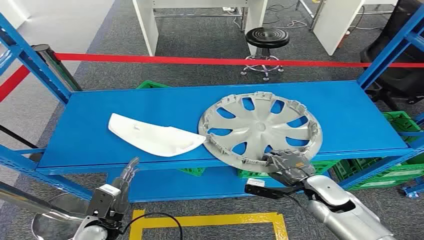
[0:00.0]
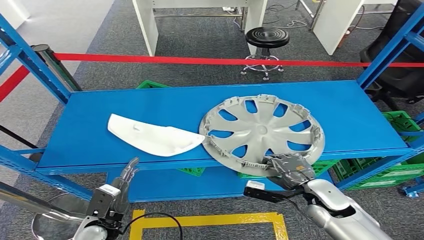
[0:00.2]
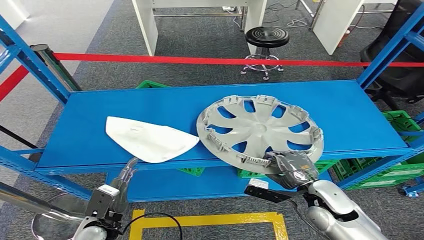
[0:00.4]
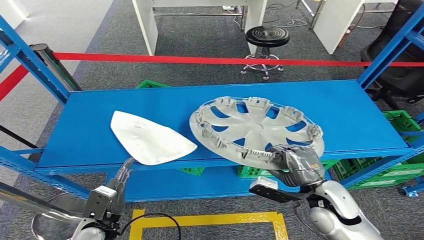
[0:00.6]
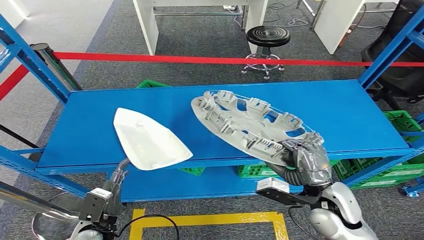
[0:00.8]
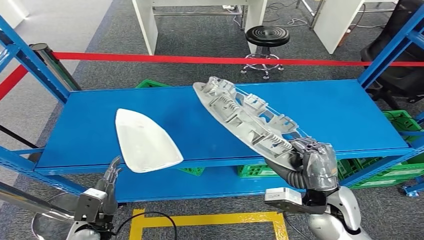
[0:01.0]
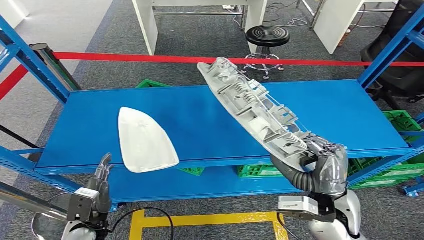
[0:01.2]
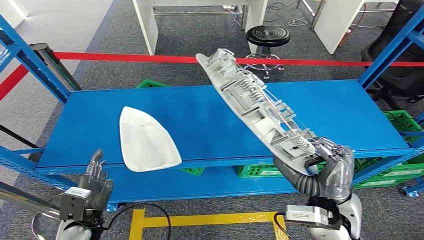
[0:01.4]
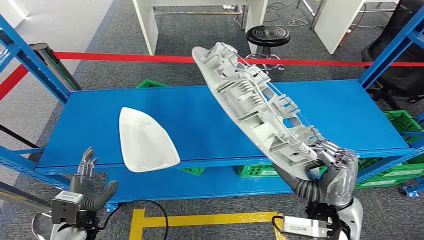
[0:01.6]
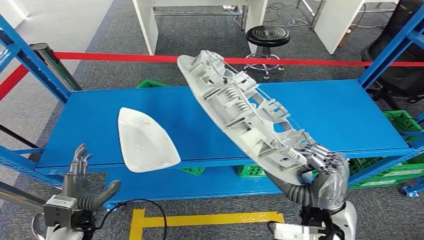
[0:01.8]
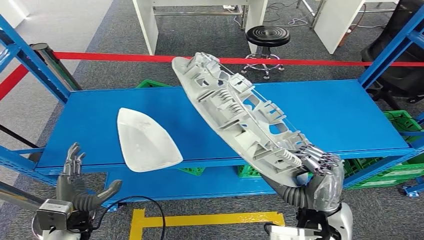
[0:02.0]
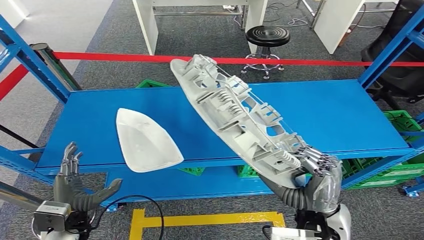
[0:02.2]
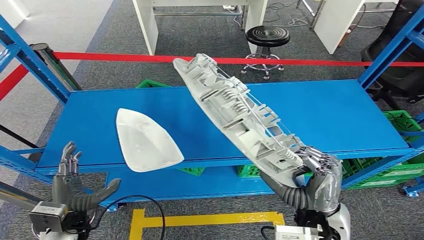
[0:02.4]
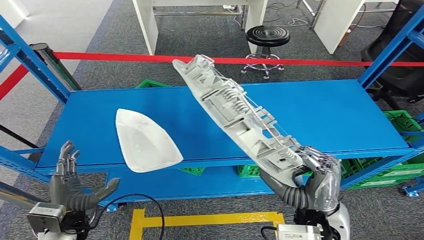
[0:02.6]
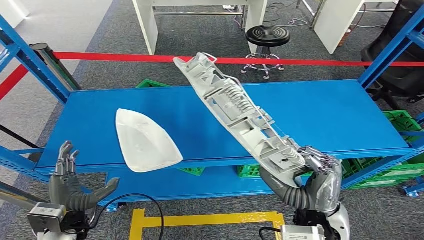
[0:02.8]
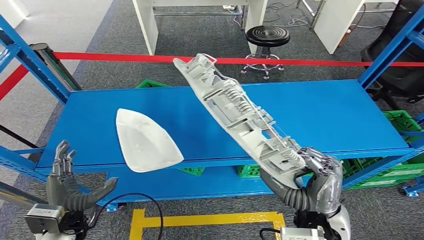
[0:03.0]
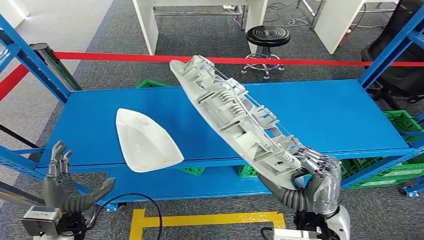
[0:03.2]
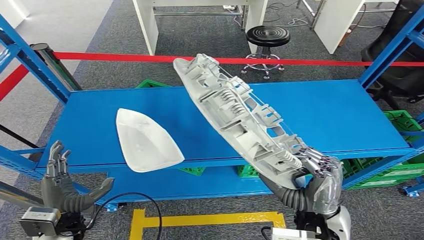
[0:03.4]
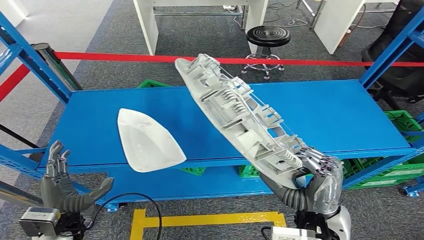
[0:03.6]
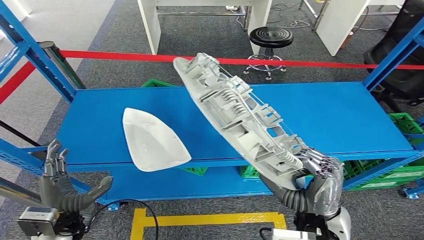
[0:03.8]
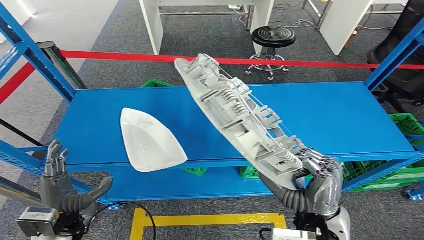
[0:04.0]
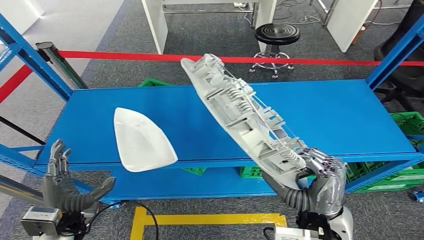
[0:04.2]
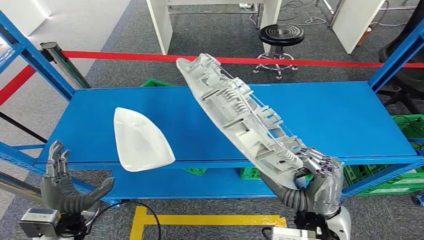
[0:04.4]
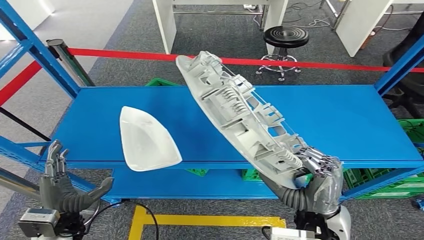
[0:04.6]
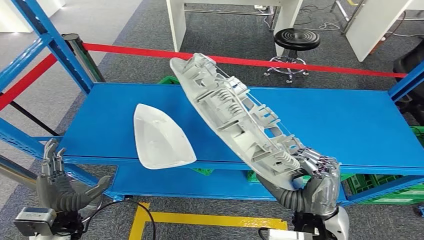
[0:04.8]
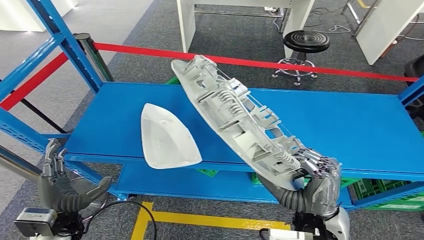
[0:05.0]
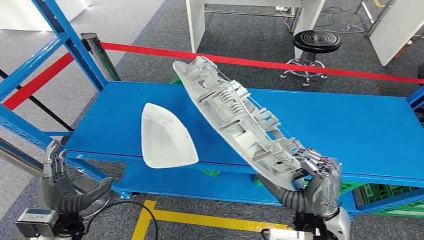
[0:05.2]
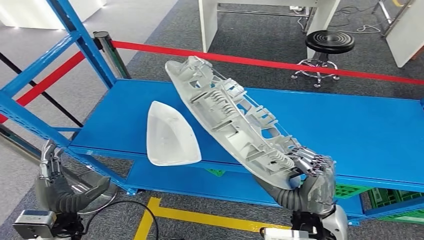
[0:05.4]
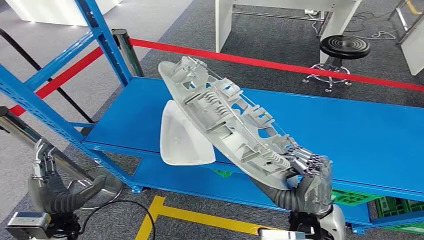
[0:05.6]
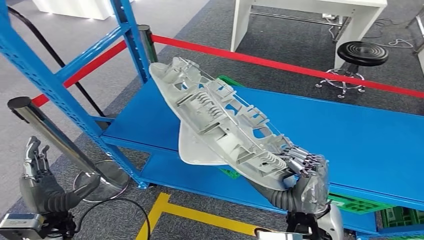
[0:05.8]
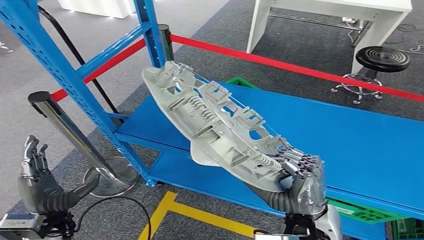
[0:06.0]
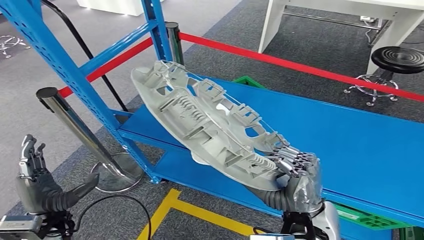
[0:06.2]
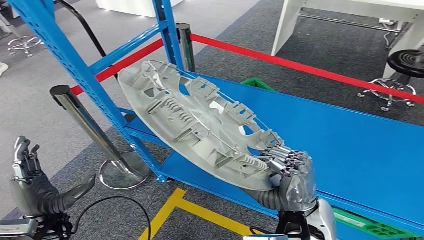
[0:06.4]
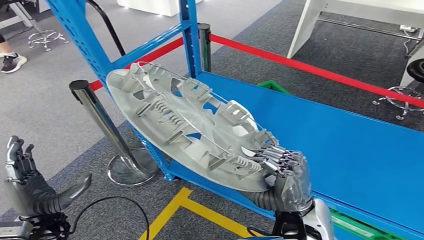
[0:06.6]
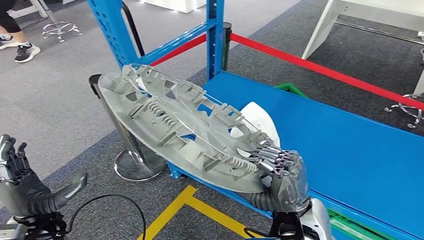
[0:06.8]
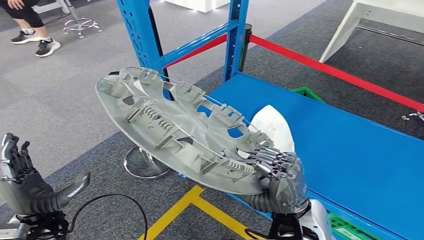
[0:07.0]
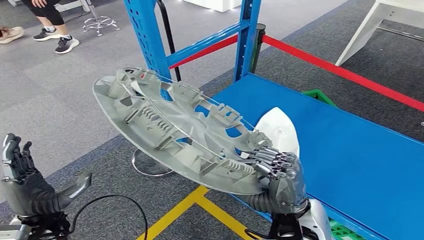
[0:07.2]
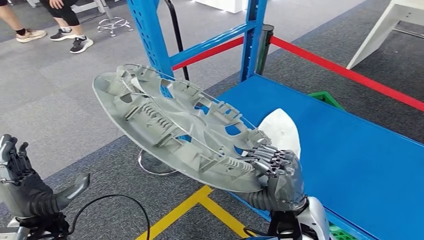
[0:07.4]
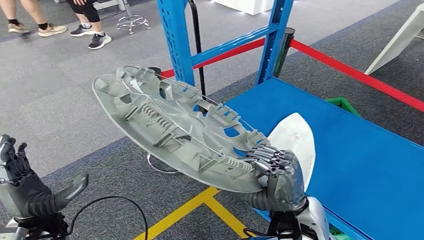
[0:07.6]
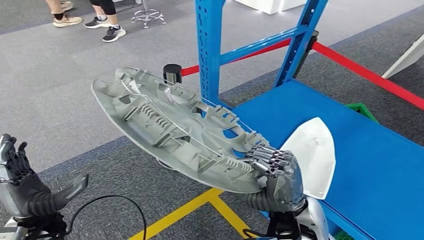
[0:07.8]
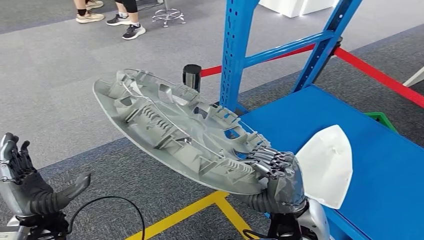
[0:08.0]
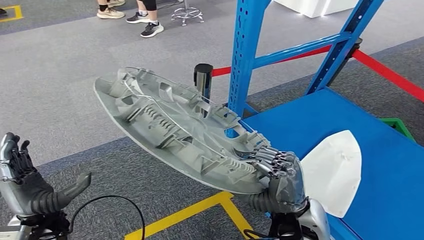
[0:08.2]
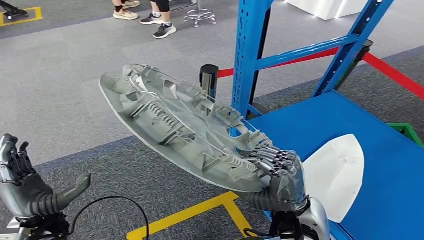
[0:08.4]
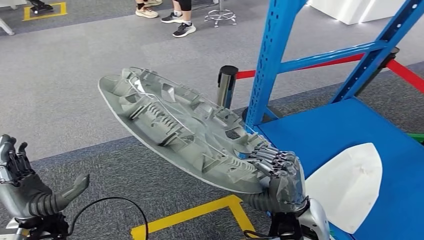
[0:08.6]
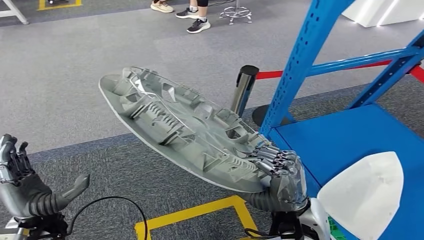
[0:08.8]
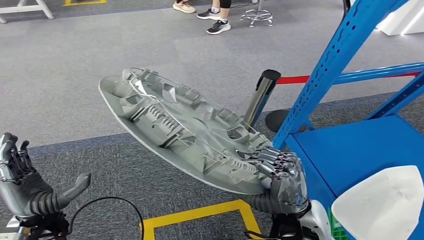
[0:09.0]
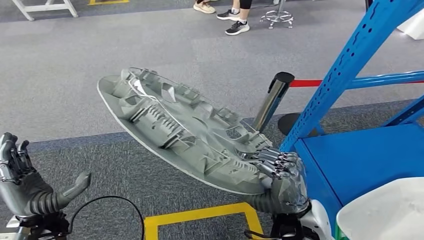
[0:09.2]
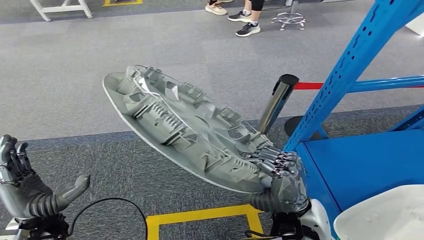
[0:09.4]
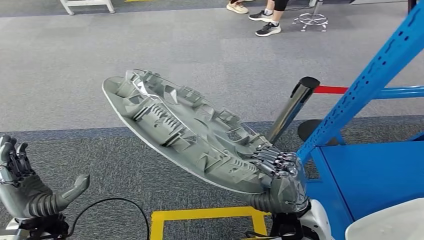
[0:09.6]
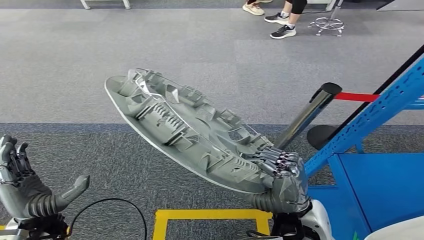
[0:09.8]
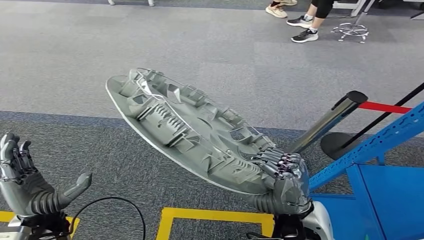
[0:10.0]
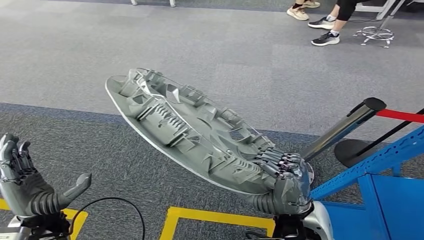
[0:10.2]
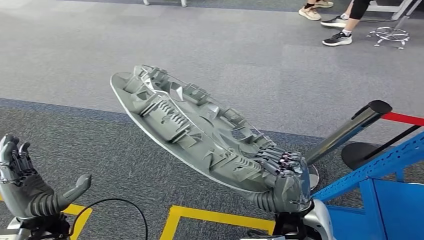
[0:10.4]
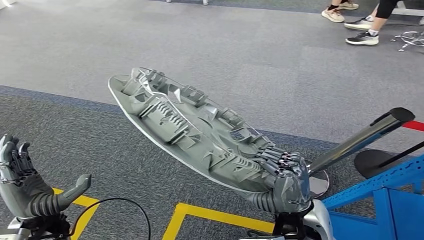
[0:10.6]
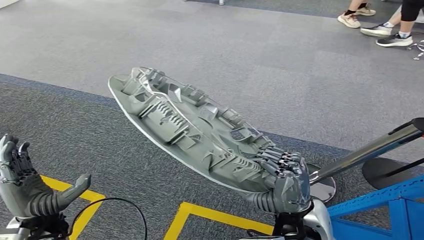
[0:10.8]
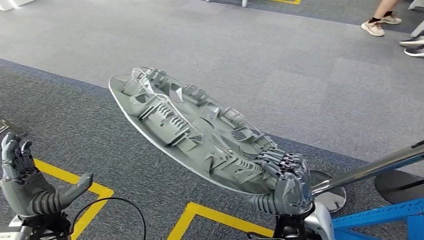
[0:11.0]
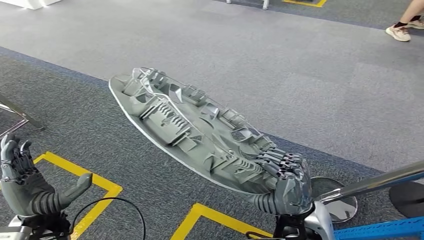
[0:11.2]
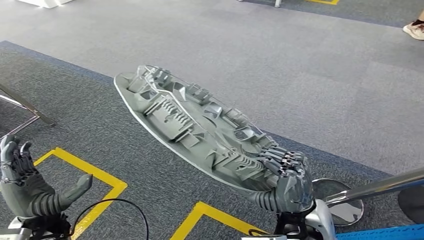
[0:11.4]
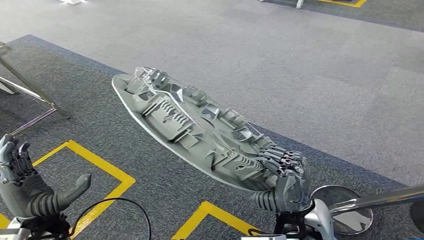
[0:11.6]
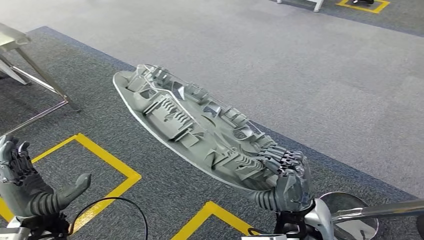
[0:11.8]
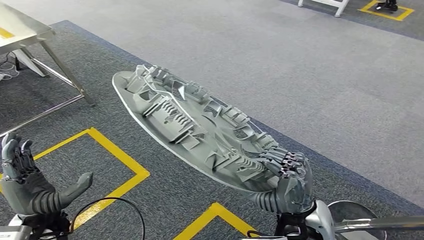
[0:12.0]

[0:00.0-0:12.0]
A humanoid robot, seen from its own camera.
Step, 0:00.0 to 0:03.2: Take small components from the rack.
0:01.6 to 0:03.0: There are only small adjustments of the hands.

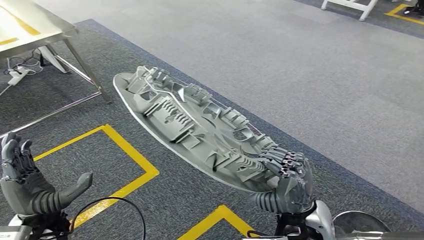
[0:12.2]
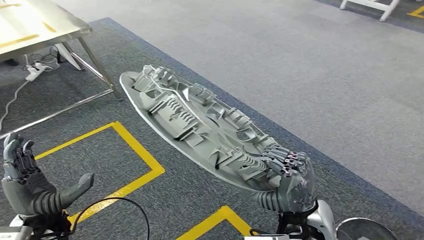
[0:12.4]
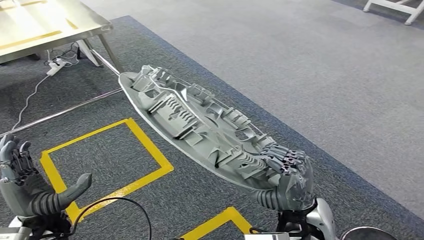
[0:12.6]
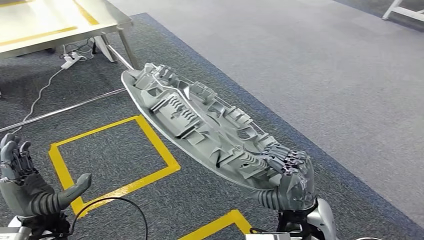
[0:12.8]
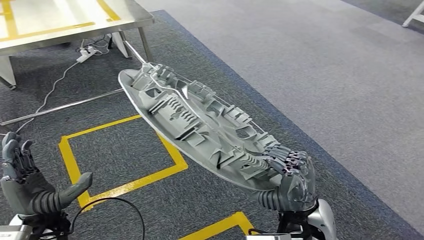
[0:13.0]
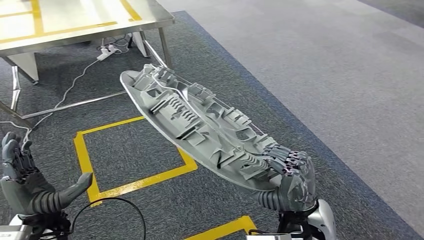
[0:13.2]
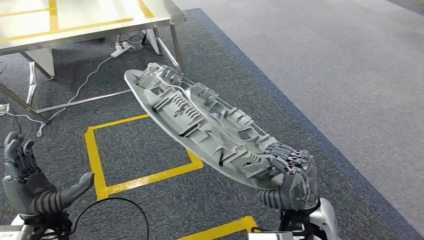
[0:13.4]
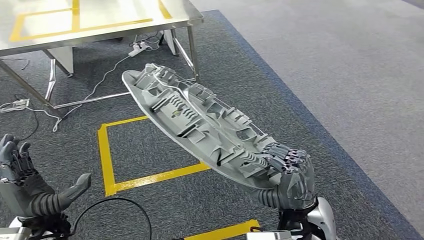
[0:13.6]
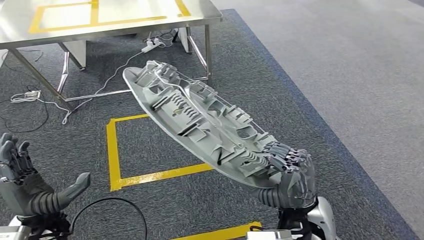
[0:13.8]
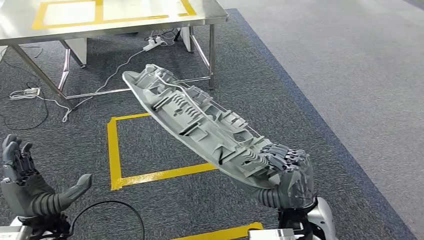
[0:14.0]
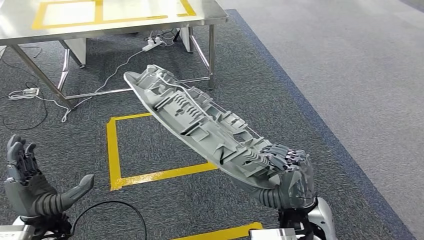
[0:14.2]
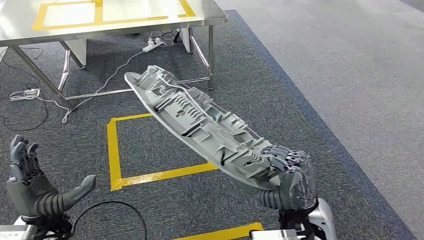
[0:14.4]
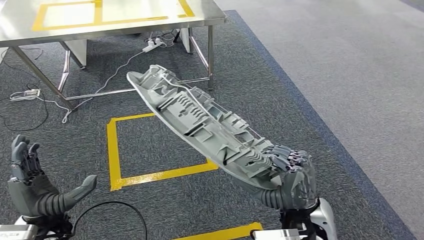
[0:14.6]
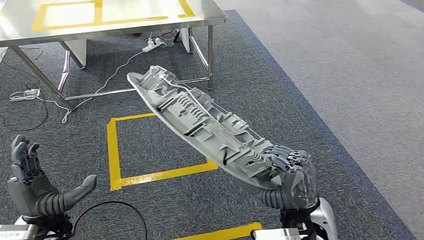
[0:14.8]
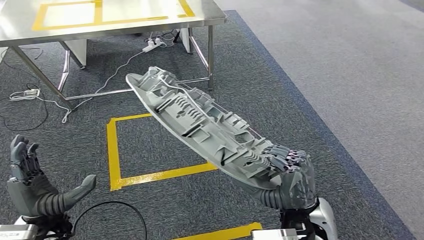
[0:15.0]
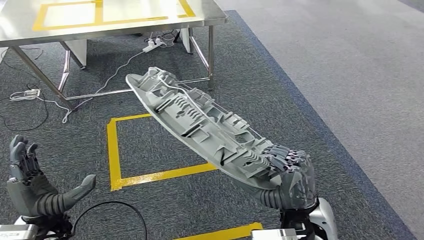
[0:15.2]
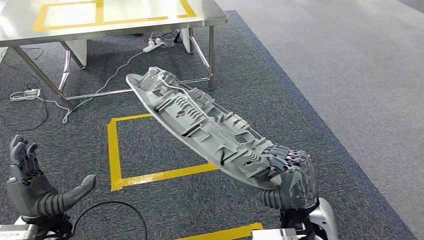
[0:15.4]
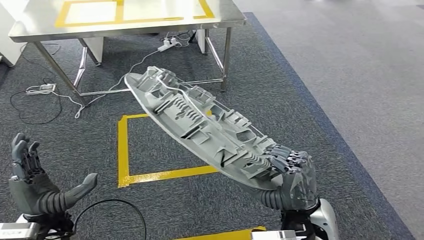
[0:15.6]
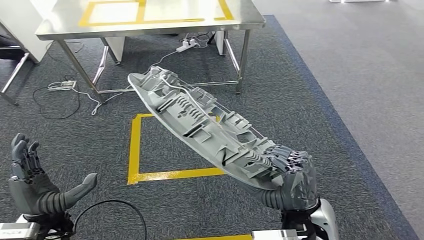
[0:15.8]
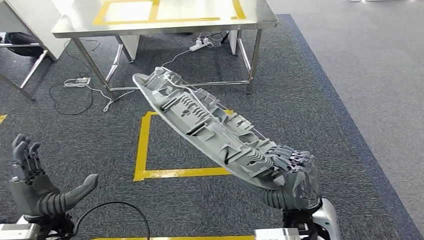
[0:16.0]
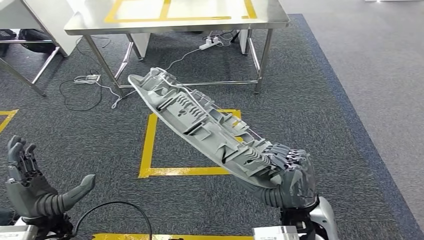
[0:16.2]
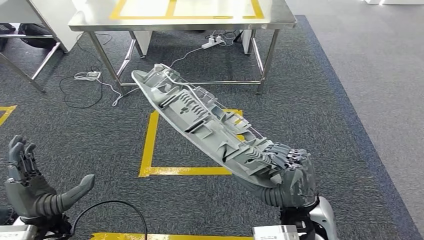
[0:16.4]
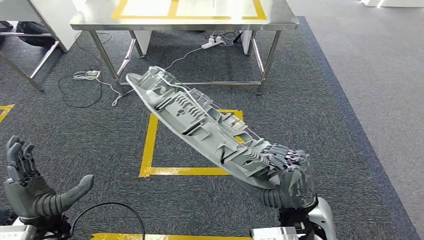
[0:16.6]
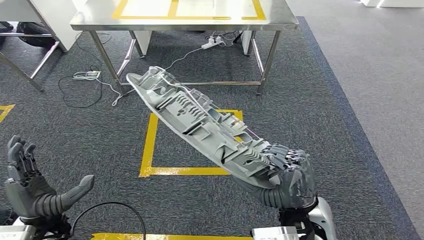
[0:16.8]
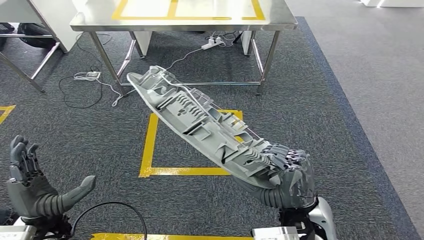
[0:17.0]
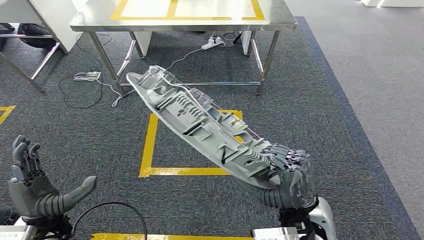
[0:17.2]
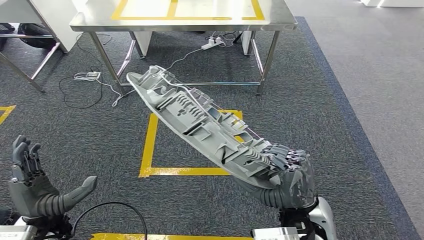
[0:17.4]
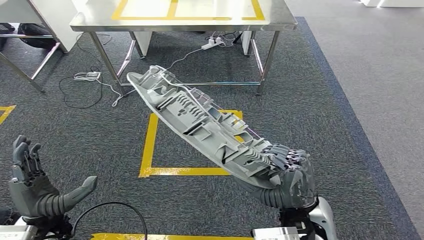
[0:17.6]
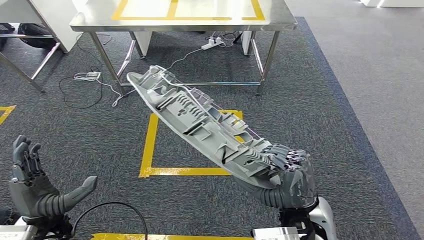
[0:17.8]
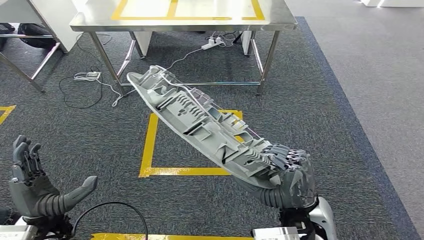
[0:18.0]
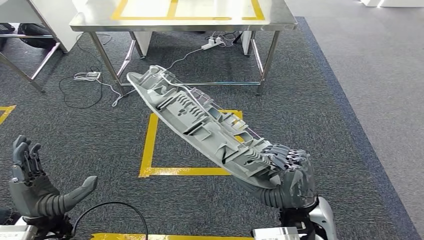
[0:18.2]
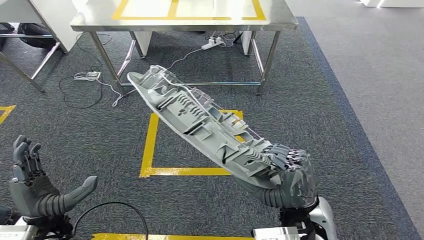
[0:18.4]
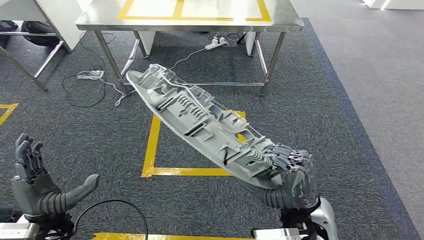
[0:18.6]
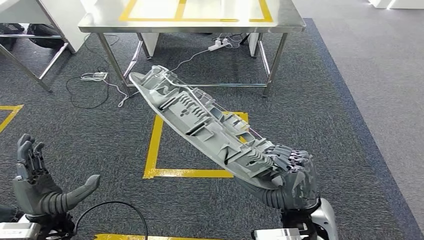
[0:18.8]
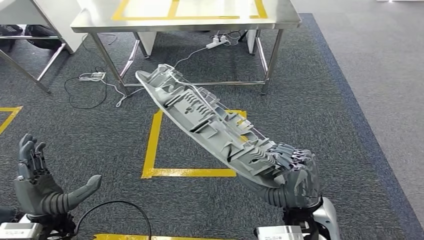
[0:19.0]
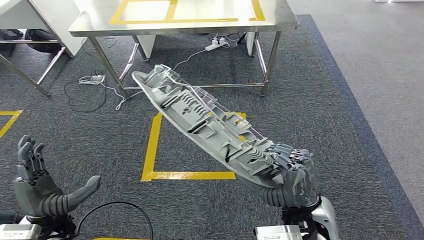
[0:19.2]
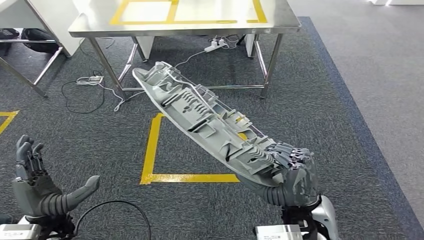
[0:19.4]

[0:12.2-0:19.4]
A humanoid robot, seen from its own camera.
0:16.6 to 0:18.0: Both hands stay about where they are.
